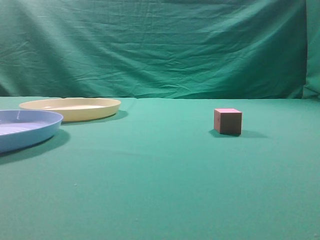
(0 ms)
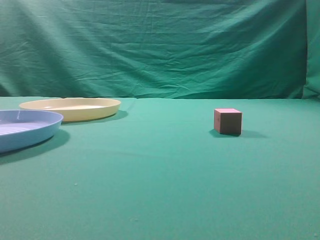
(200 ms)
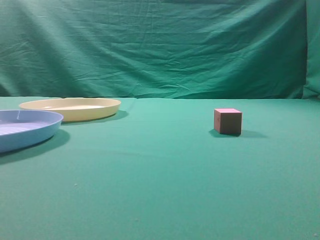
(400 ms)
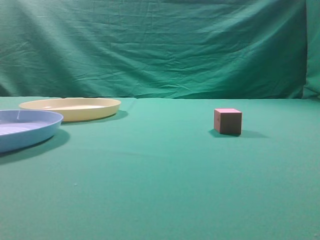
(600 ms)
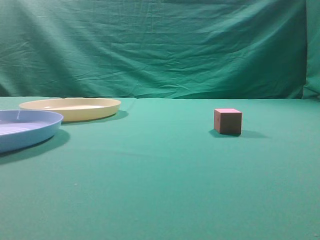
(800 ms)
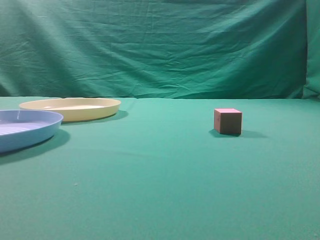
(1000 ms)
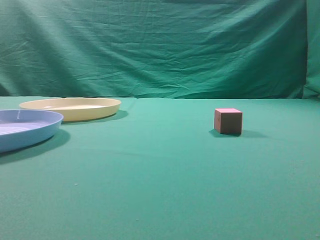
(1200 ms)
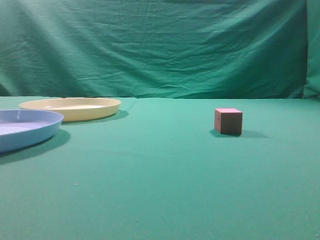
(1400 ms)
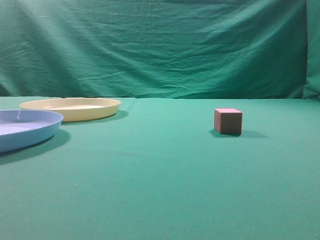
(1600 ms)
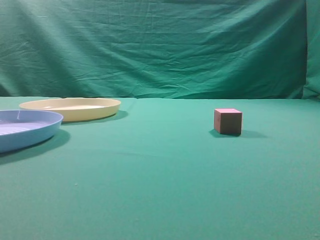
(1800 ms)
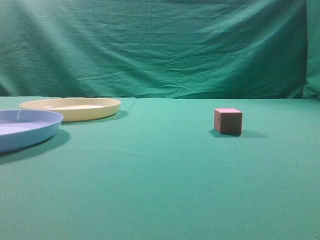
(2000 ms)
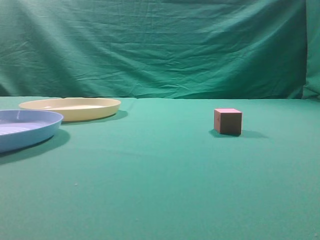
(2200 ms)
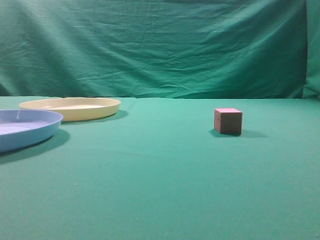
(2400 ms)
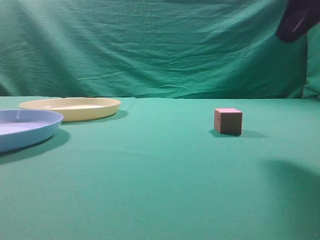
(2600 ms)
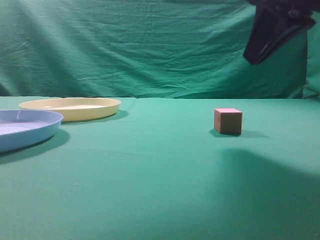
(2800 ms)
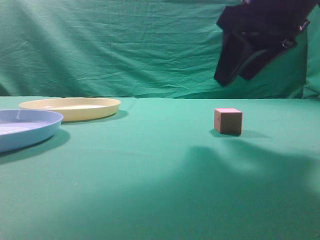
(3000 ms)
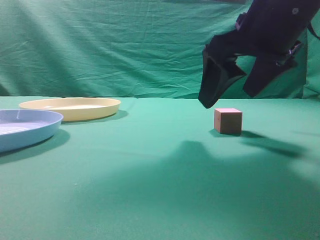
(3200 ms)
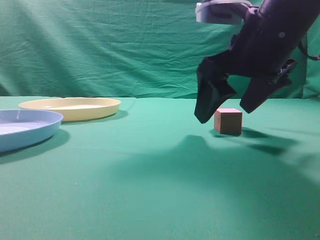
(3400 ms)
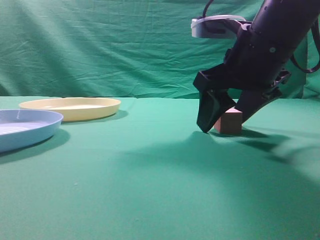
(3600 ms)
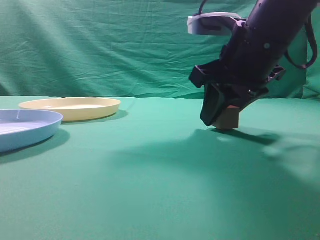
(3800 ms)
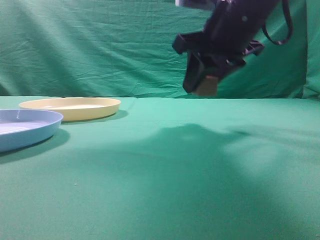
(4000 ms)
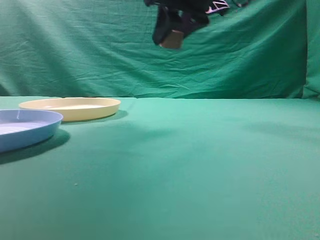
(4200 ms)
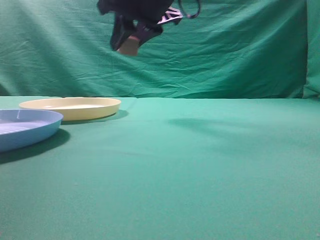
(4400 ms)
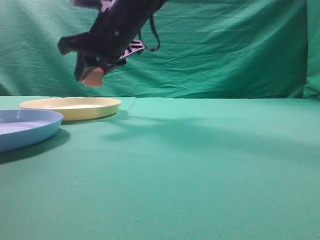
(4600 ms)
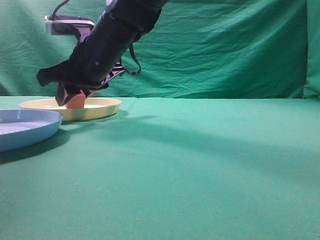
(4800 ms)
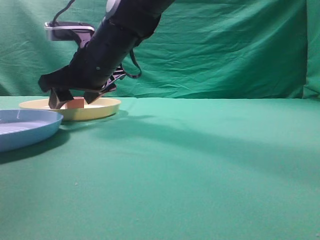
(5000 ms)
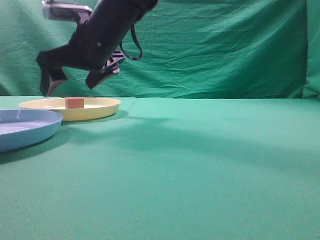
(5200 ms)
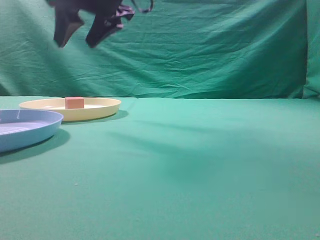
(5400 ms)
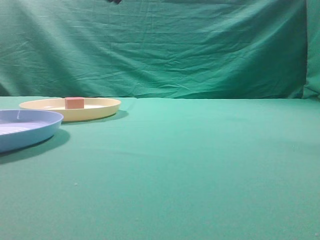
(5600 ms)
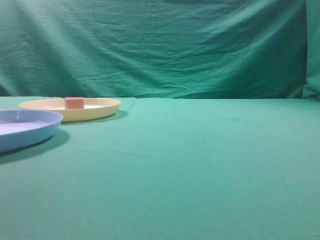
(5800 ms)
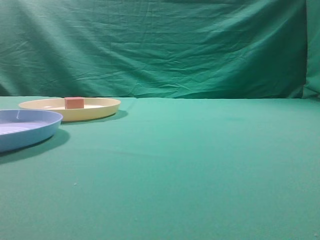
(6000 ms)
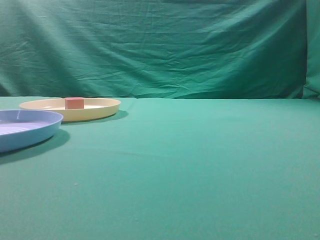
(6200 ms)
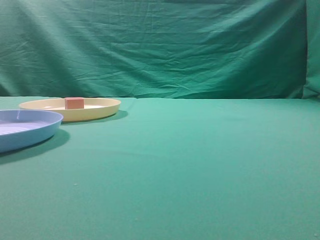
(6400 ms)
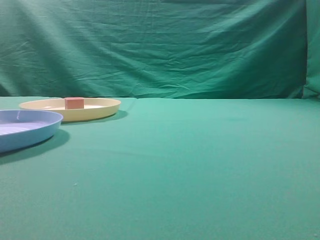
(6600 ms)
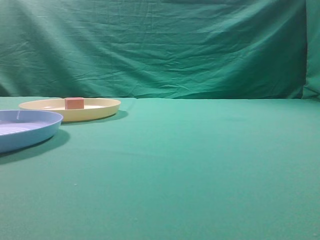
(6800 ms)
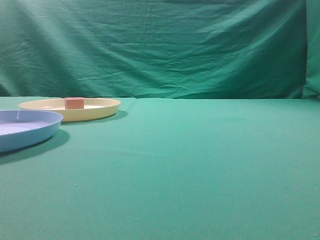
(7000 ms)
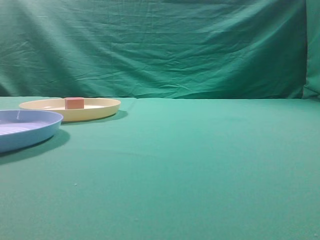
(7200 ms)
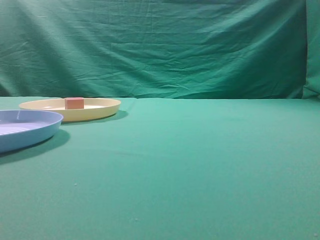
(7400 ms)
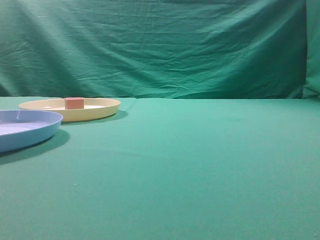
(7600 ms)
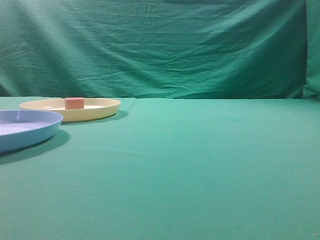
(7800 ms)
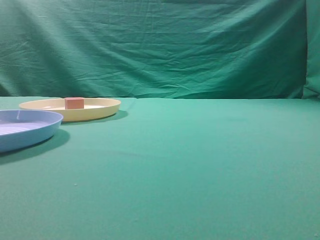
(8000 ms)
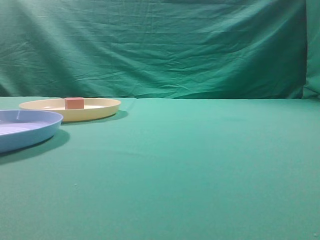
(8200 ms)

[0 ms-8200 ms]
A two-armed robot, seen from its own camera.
Task of the whole recording: pick up the cube block from the table and put it on the plate.
Step, 0 ms to 4000 ms: Grasp the small cube on the table.
Step, 4200 ms to 5200 ms: Place it into the yellow plate.
1600 ms to 3200 ms: The right gripper shifts roughly 25 cm forward and to the left, and opens up.
3200 ms to 5000 ms: The right gripper travels to the left and forward by some 25 cm, and closes, then reopens.
5000 ms to 6600 ms: The right gripper heads to the right, backward and upward, covering roughly 50 cm, and closes up.
